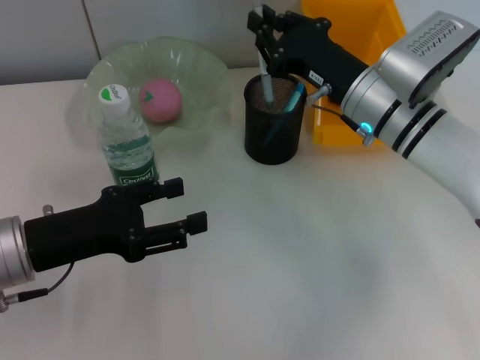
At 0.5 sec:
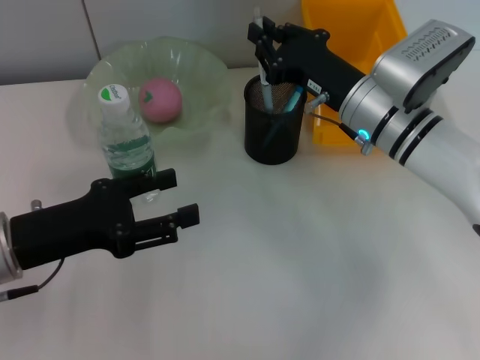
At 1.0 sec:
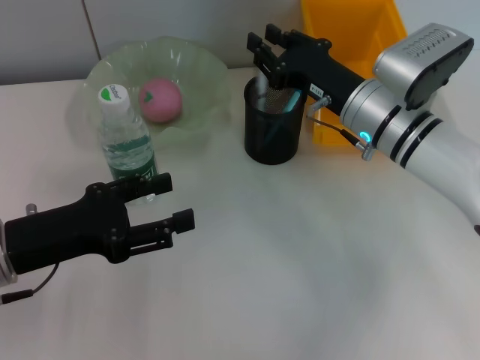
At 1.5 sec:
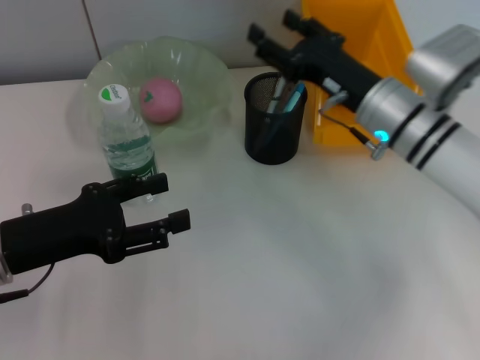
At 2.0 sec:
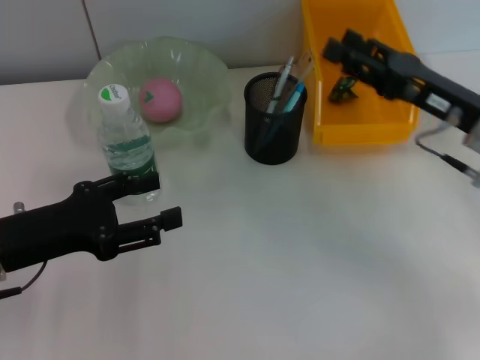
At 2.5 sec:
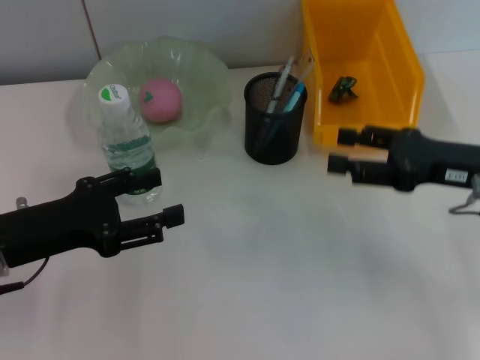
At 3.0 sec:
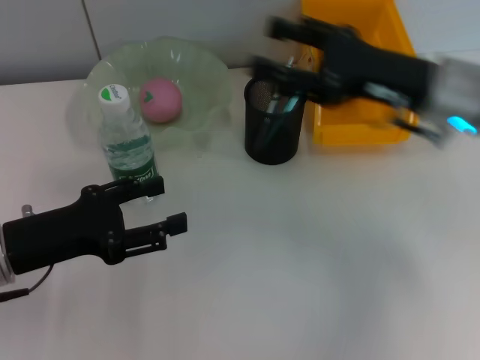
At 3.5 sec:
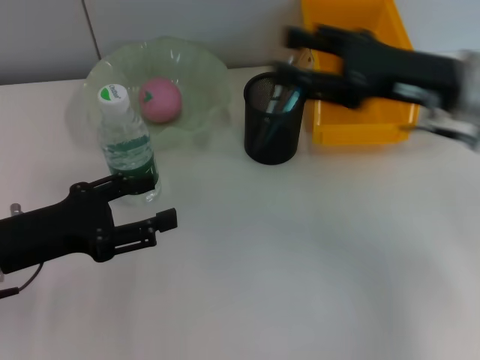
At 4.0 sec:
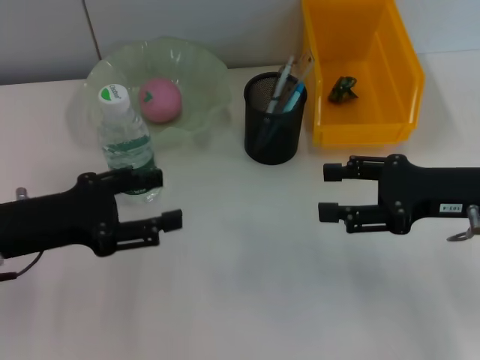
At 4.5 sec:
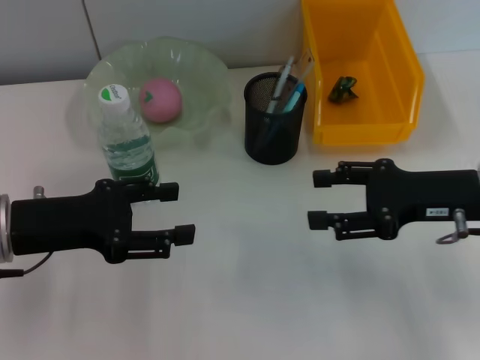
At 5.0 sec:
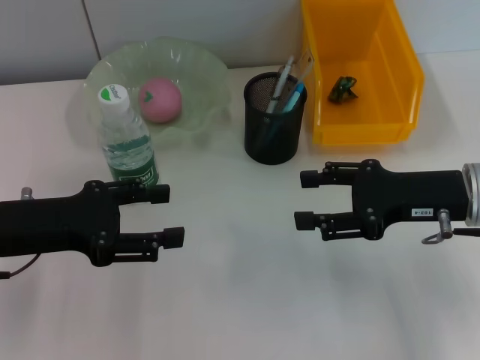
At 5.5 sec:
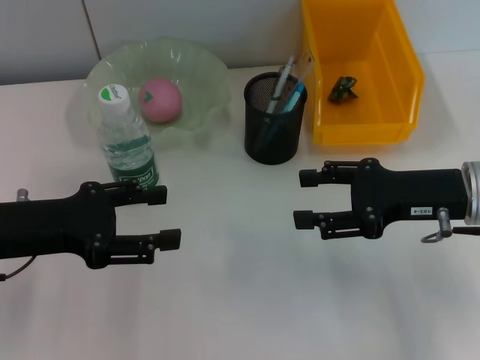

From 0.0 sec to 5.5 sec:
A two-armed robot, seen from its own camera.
From 0.0 sec to 2.0 sec: The right gripper travels to the right and backward by approximately 10 cm, and opens.
From 2.0 sec to 3.5 sec: The right gripper goes roughly 5 cm upward.
From 3.5 sec to 5.5 sec: The right gripper goes roughly 5 cm downward.
